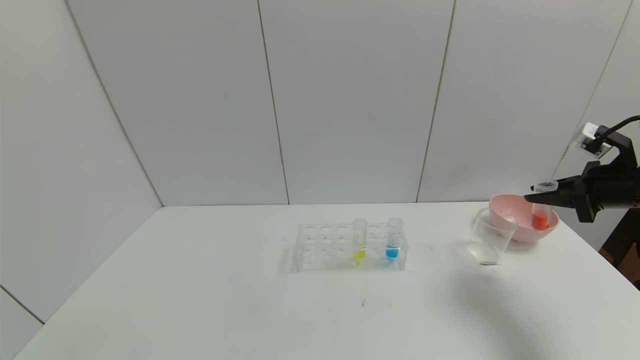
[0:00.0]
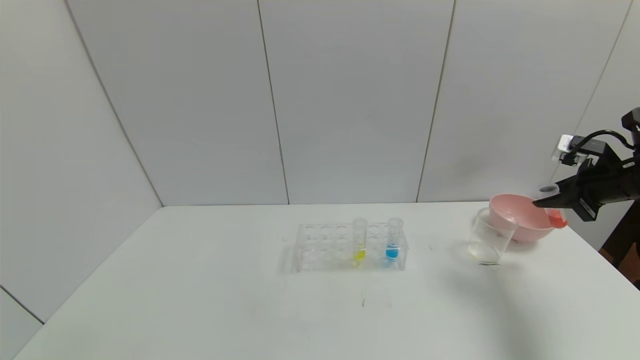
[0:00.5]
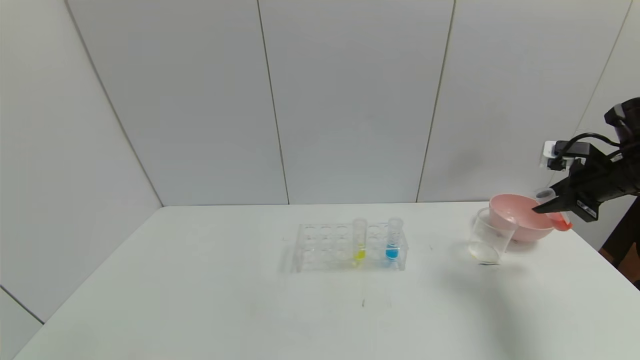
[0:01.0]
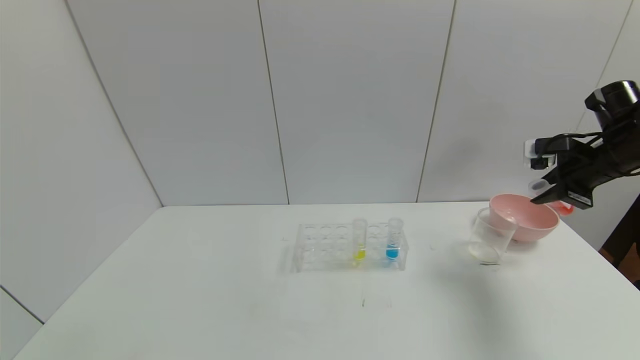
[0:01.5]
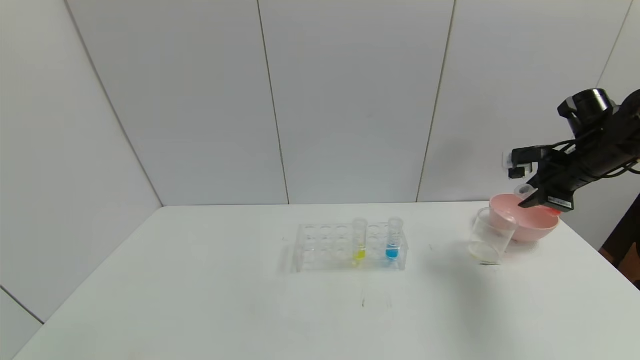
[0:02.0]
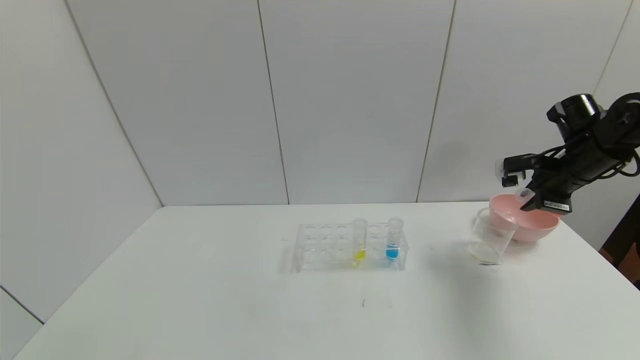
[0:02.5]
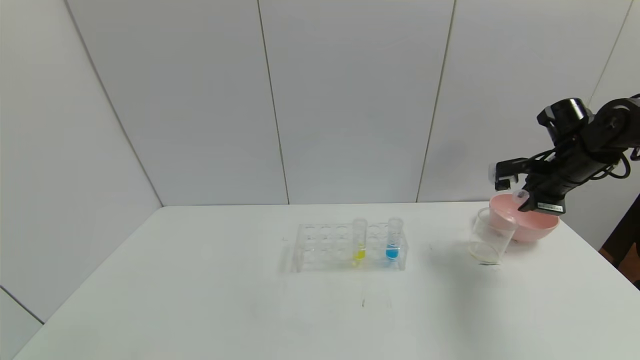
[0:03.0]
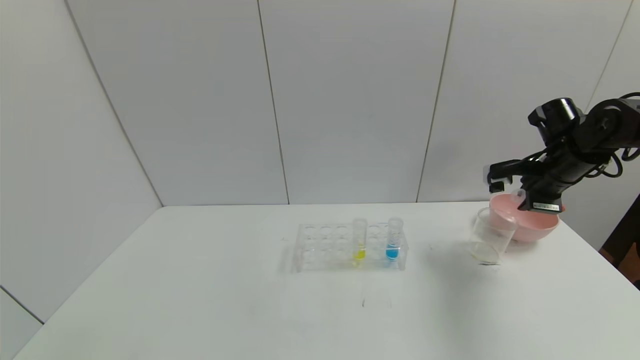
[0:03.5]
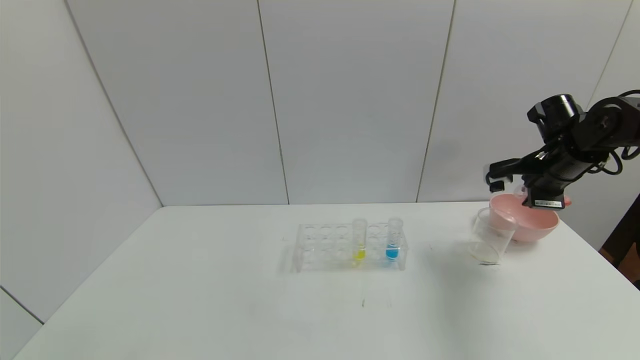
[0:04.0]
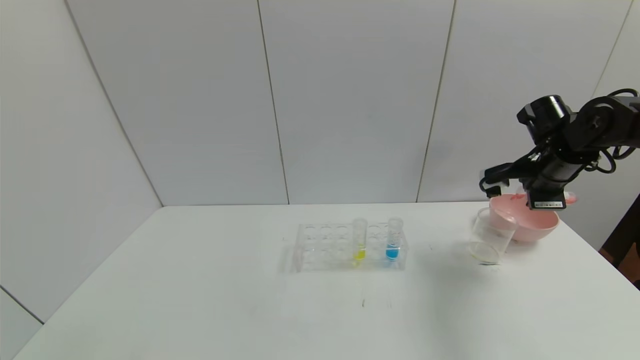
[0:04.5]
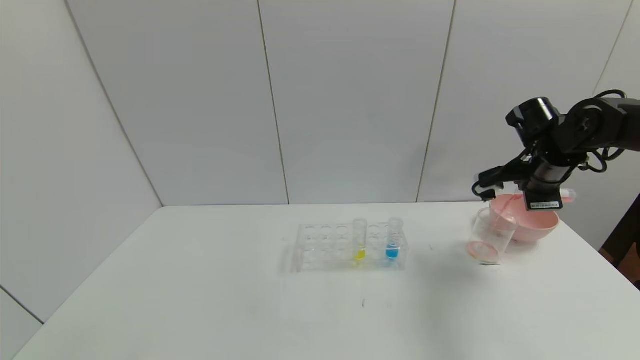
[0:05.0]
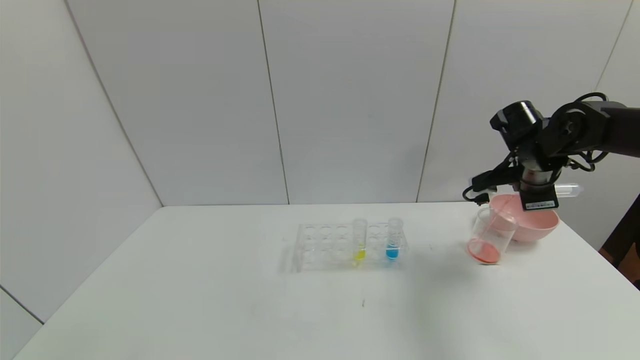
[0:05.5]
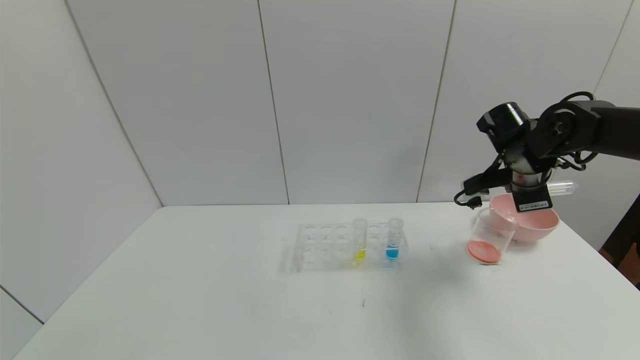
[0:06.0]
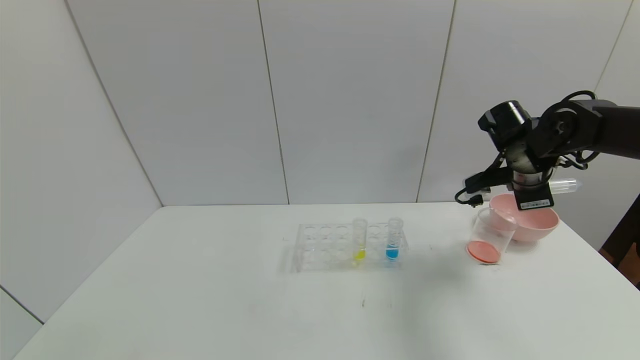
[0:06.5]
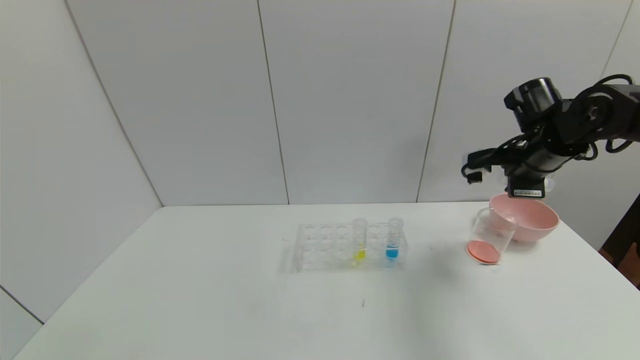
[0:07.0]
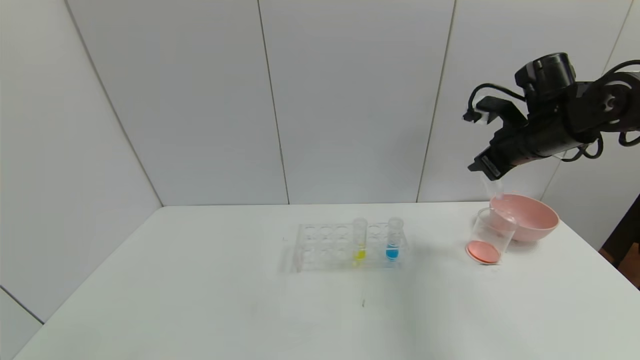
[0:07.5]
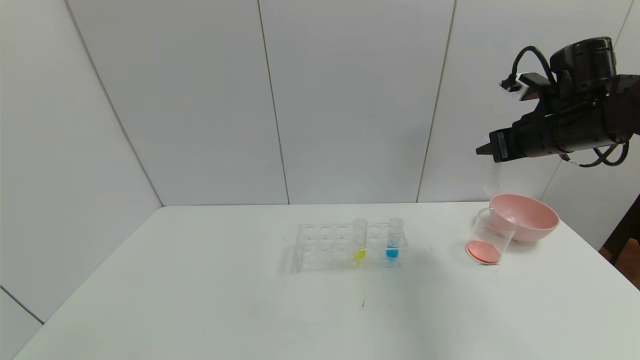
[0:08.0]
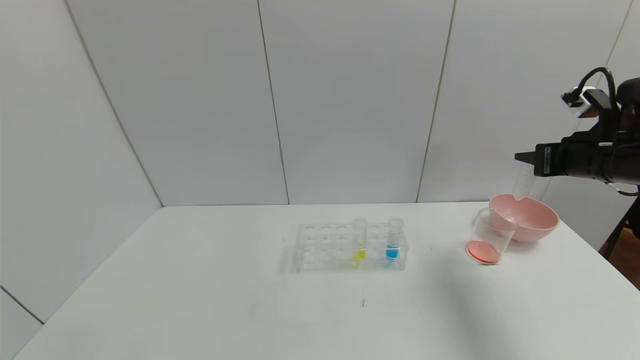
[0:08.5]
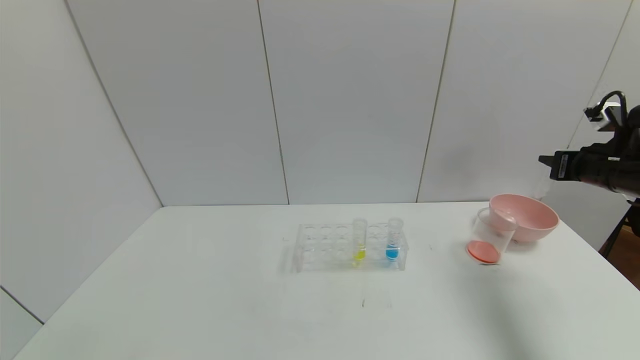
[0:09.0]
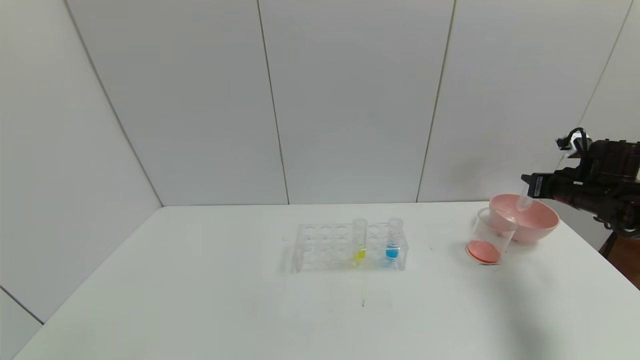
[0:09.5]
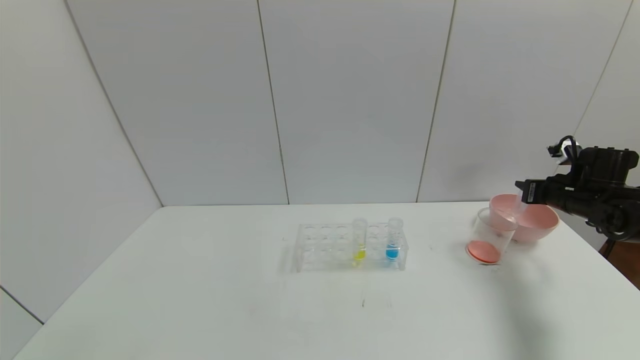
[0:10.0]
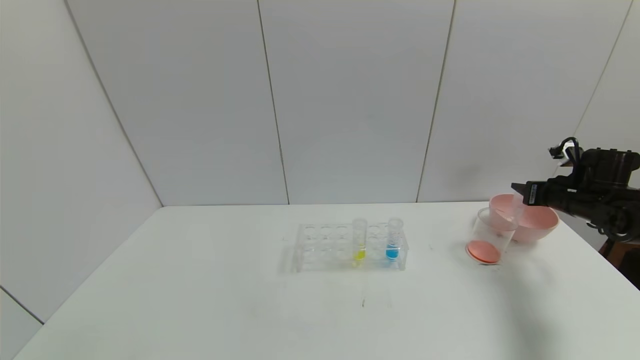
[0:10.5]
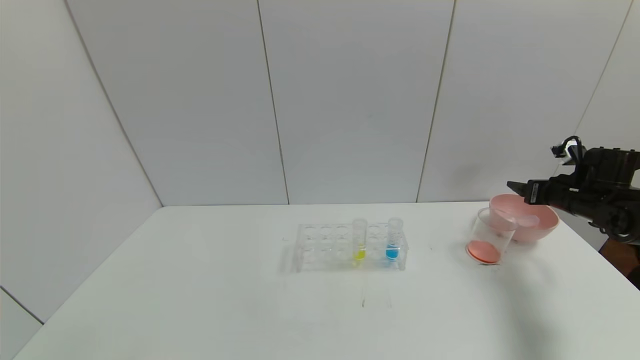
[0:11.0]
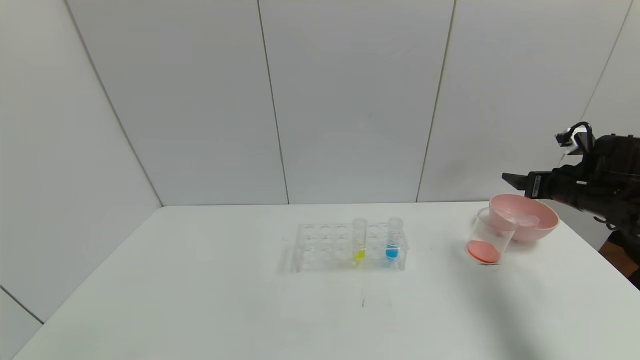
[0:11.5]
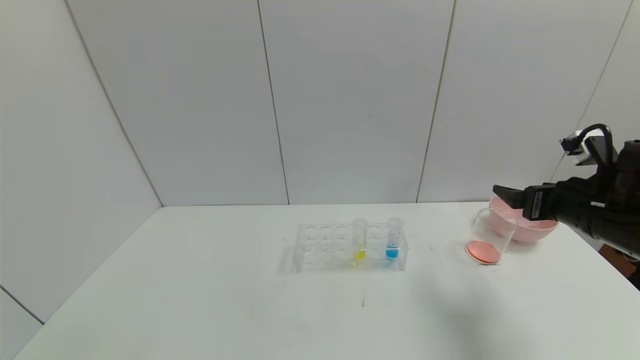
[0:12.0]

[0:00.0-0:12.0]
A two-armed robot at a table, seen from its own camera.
Task of the whole recording: pick up the test tube with yellow pigment and the test tube with red pigment by grippers and pour them into the beaker.
Step, 0:00.0 to 0:06.0: Pour the red reagent into the graduated cylinder with the right gripper.
Step, 0:06.5 to 0:10.5: Place the test tube into the bowl with the right gripper.
0:00.0 to 0:02.0: The right gripper shifts about 5 cm forward.
0:02.0 to 0:04.0: There are only small adjustments of the grippers.
0:04.0 to 0:06.0: The right gripper goes approximately 5 cm to the left.
0:06.0 to 0:08.0: The right gripper goes some 5 cm upward.
0:08.0 to 0:10.0: The right gripper travels downward and to the right by approximately 20 cm.
0:10.0 to 0:12.0: The right gripper heads backward, to the left and upward, covering some 15 cm, and opens its fingers.

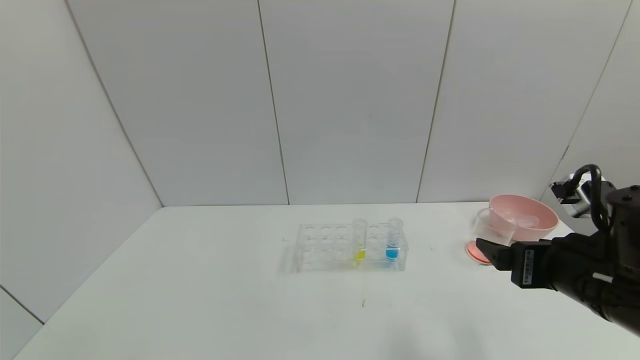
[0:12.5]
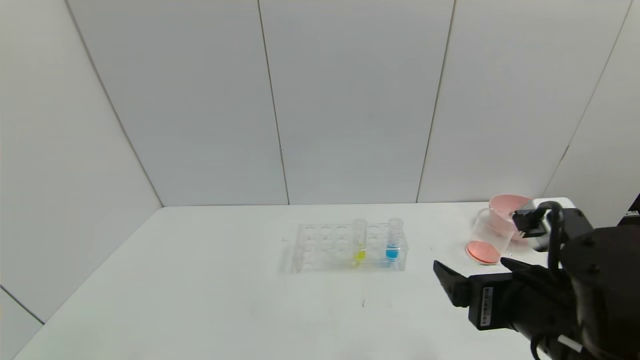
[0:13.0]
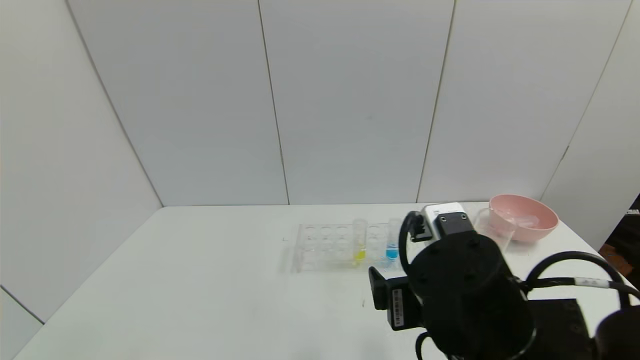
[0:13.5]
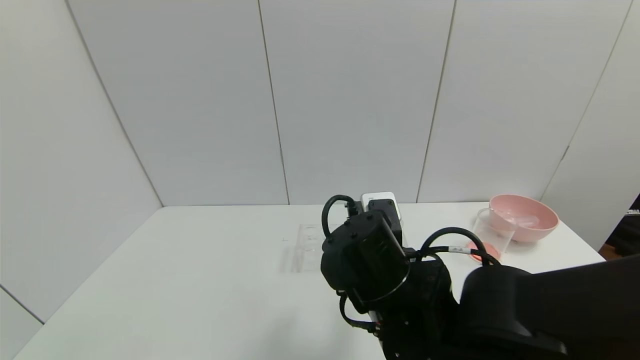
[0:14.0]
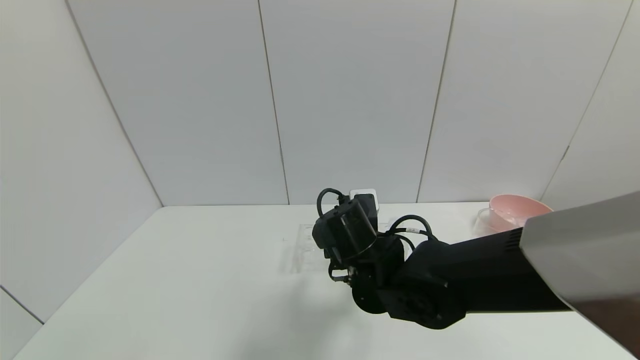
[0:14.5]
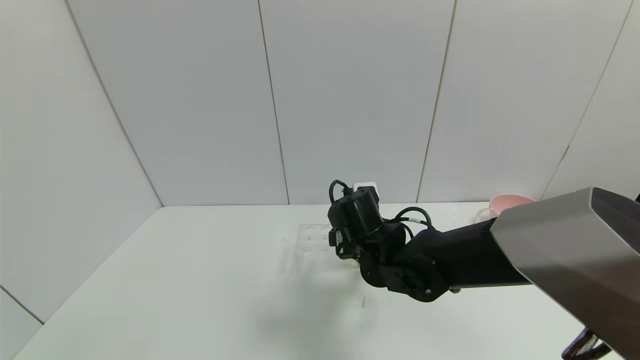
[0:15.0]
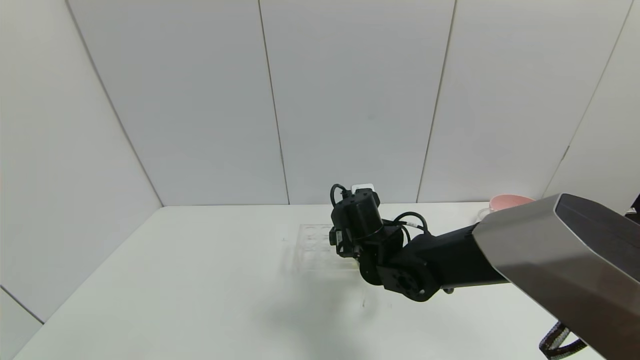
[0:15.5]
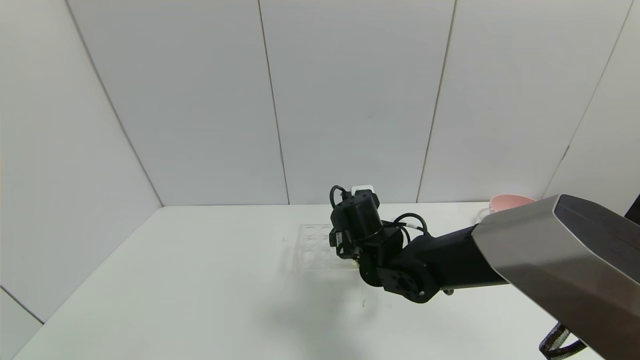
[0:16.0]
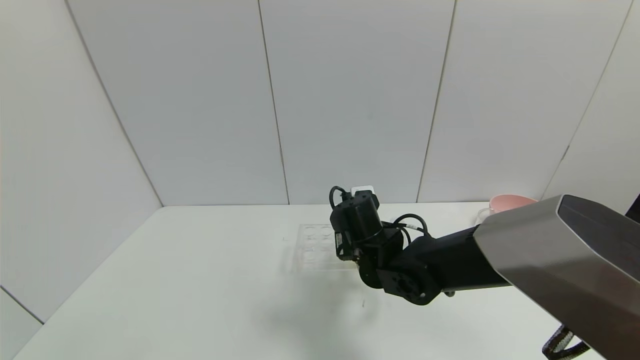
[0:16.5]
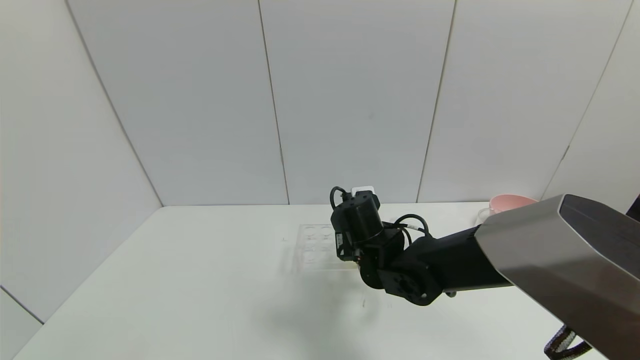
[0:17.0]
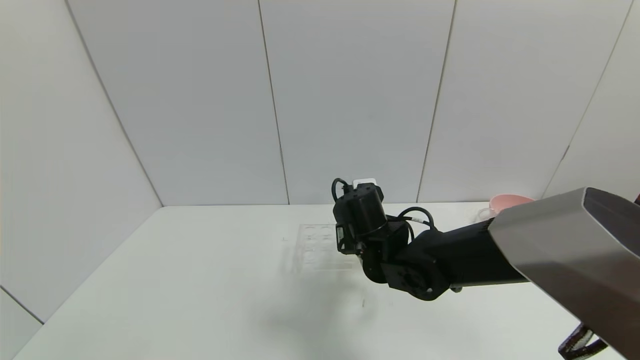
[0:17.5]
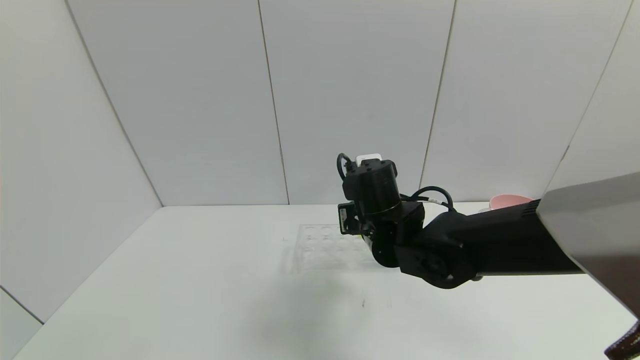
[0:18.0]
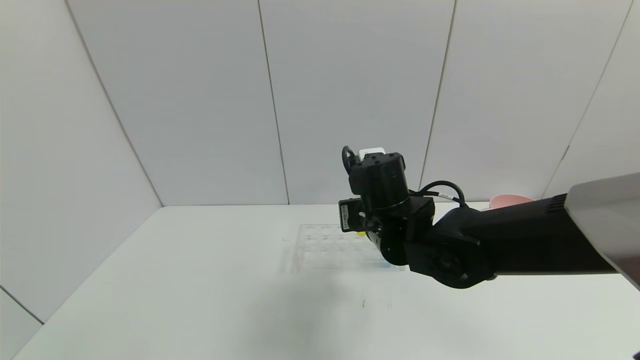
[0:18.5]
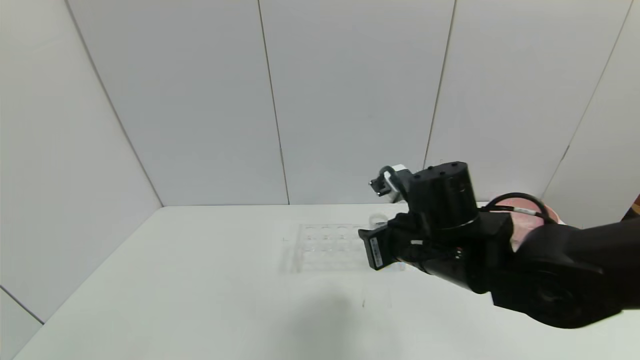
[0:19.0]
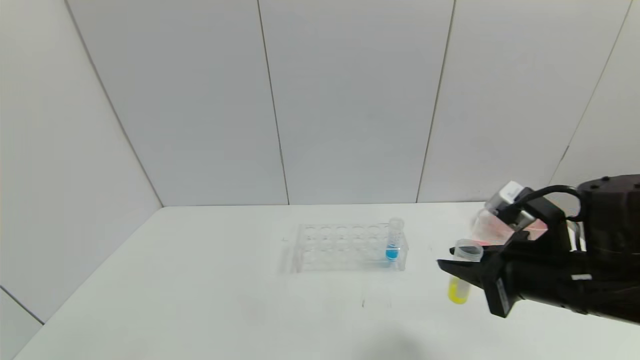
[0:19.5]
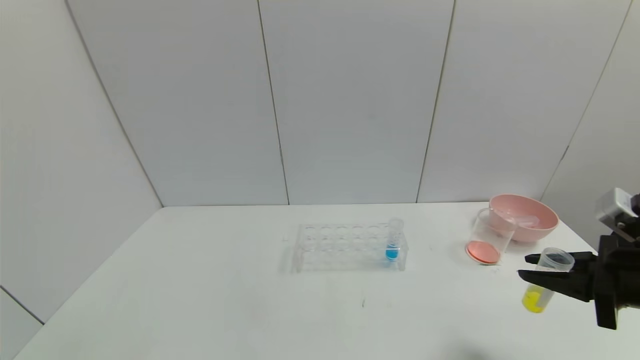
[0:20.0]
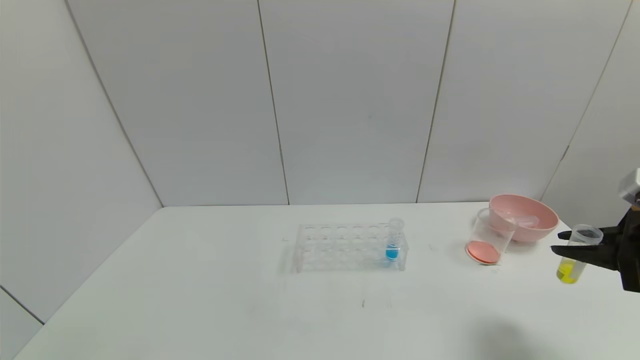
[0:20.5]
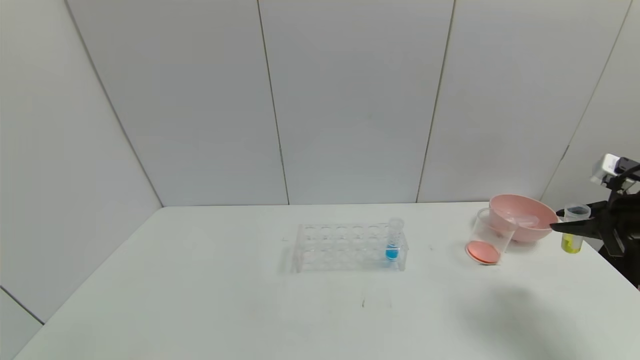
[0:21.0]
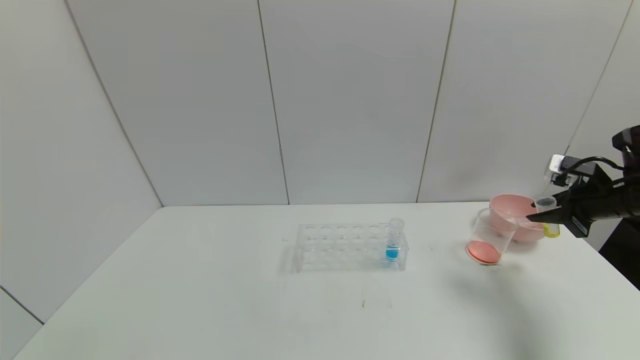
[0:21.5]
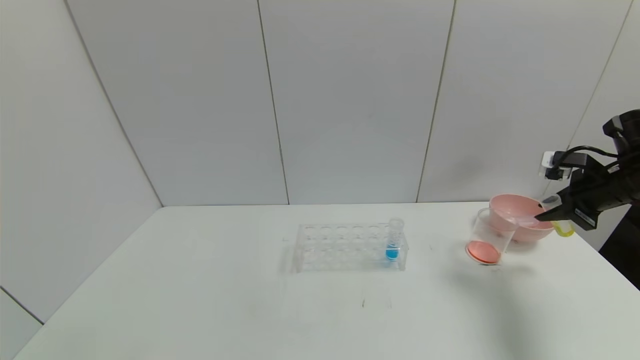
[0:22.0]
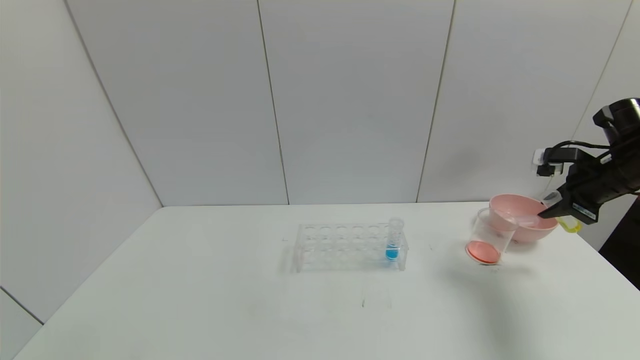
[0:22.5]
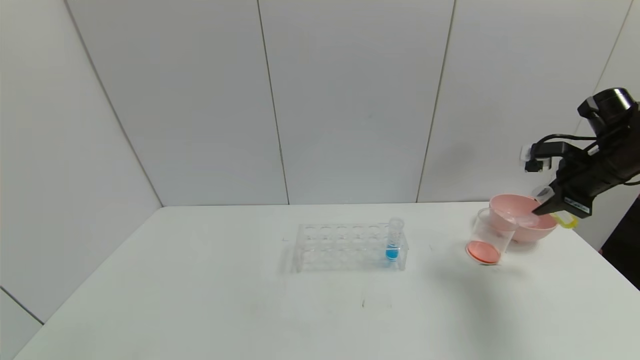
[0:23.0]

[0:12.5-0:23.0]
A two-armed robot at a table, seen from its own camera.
Task of the whole recording: pick up the test tube with yellow pigment and the test tube with red pigment by grippers and pour them into the beaker.
Step, 0:12.5 to 0:16.5: Grasp the yellow reagent with the right gripper.
0:12.5 to 0:14.5: The right gripper goes roughly 25 cm to the left and forward.
0:14.5 to 0:16.5: The right gripper shifts about 5 cm forward, and closes its fingers.
0:16.5 to 0:19.0: The right gripper goes roughly 10 cm upward, backward and to the right.
0:19.0 to 0:21.0: The right gripper is displaced to the right by roughly 35 cm.
0:21.0 to 0:23.0: The right gripper moves forward, approximately 10 cm.
